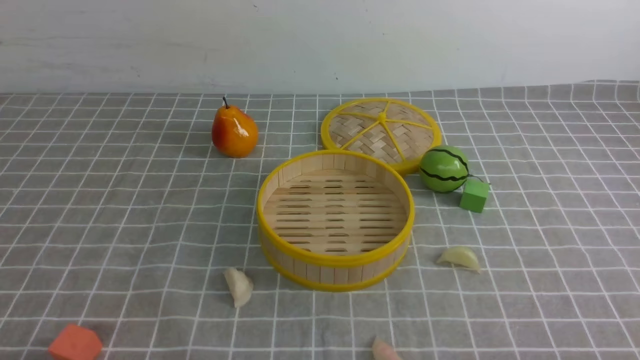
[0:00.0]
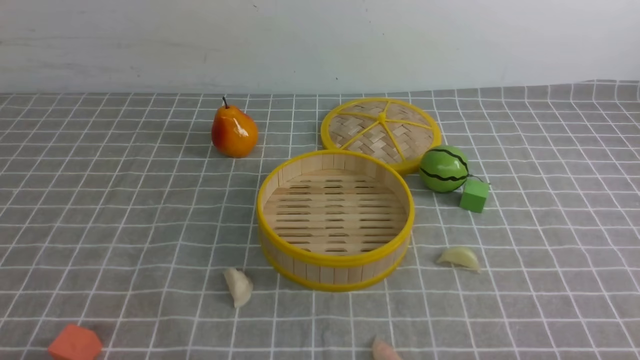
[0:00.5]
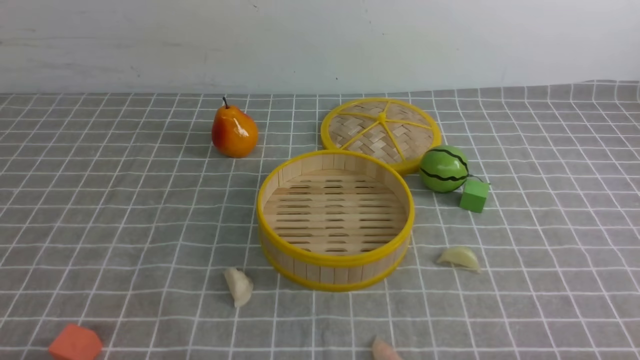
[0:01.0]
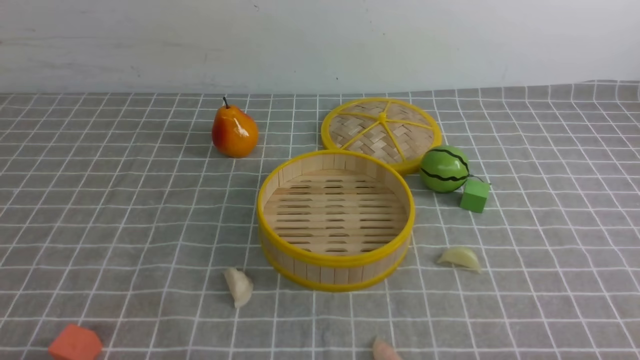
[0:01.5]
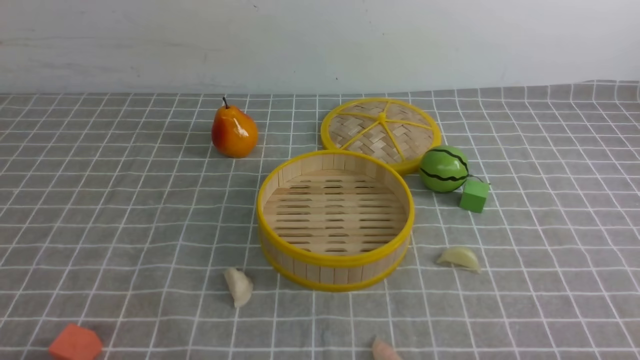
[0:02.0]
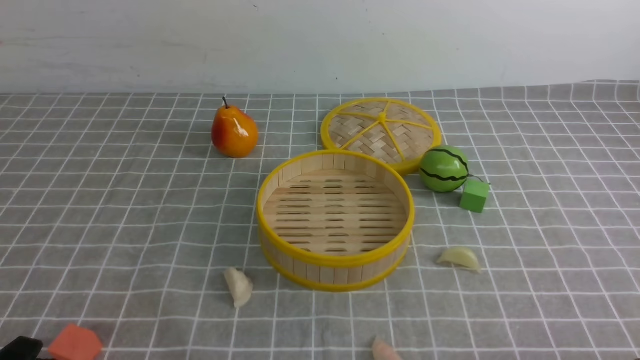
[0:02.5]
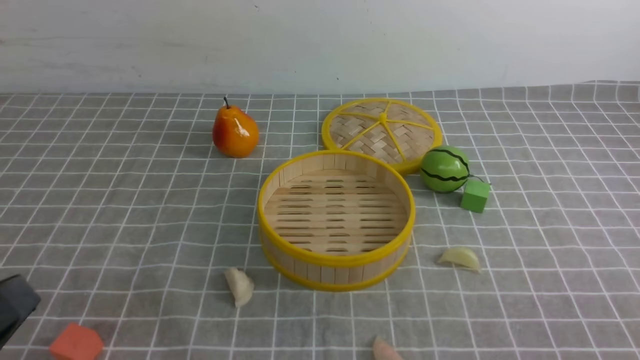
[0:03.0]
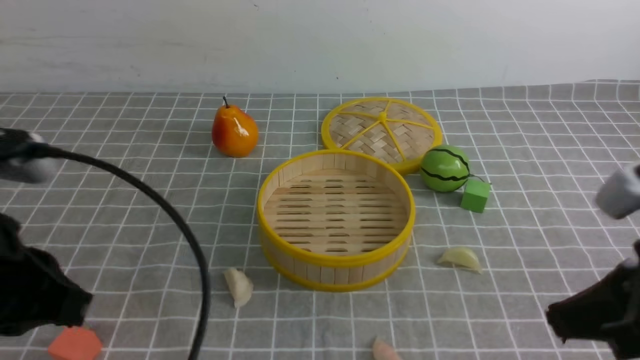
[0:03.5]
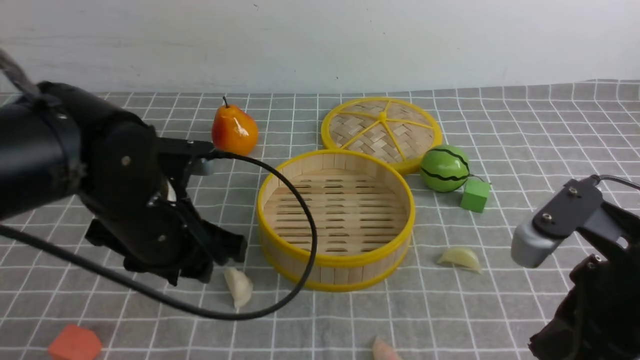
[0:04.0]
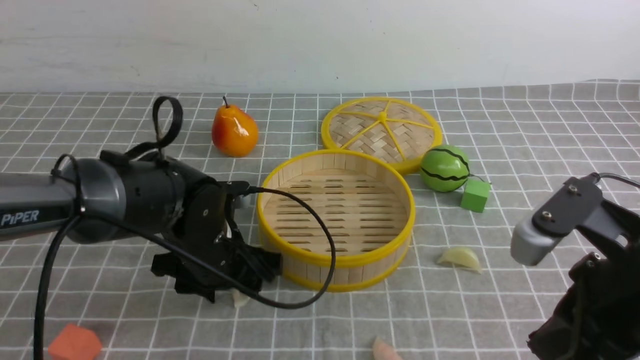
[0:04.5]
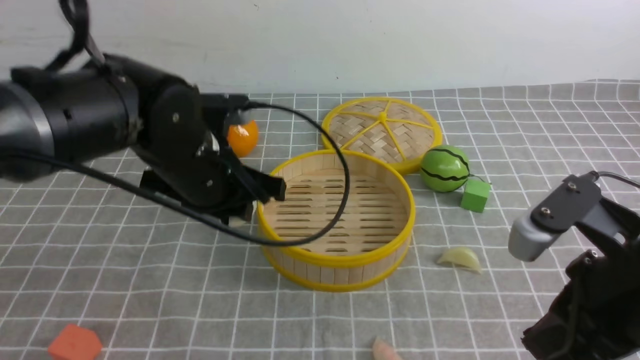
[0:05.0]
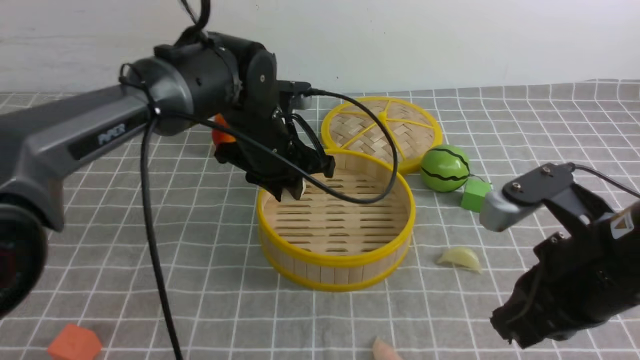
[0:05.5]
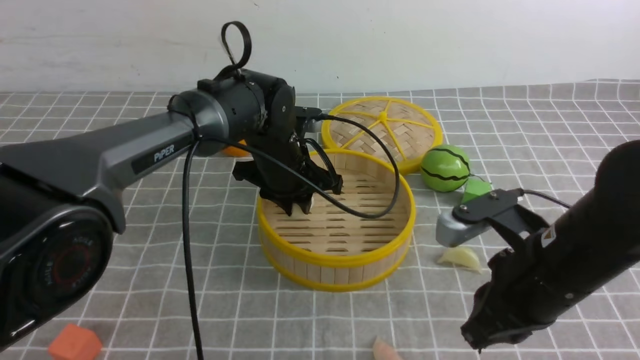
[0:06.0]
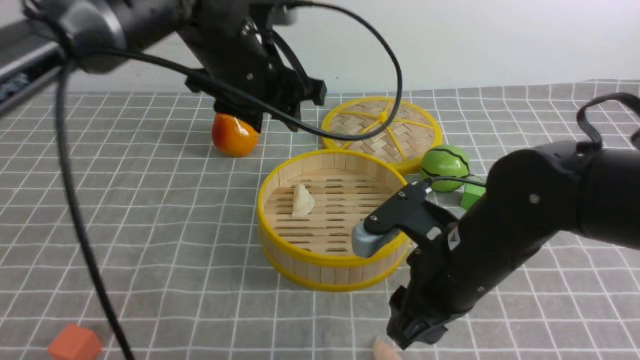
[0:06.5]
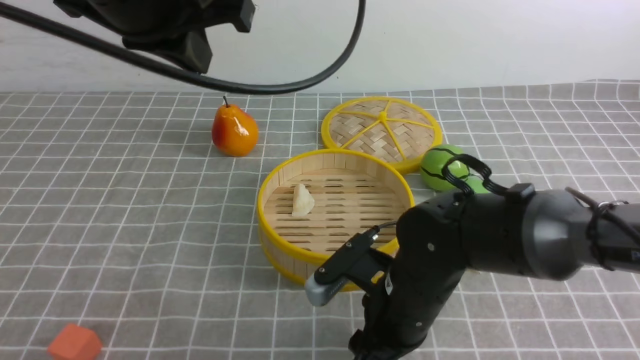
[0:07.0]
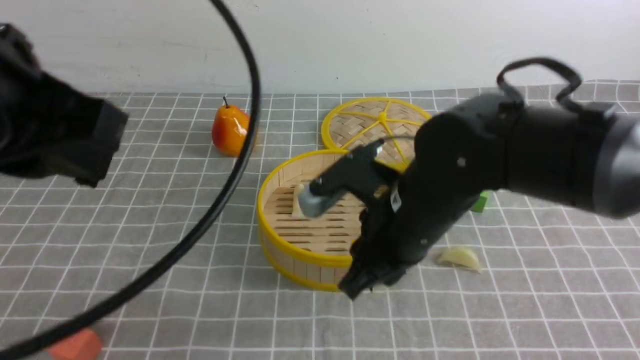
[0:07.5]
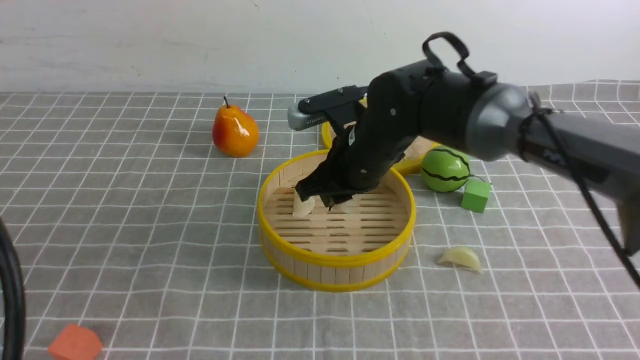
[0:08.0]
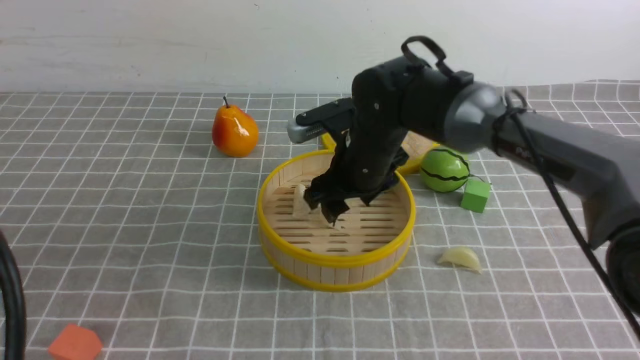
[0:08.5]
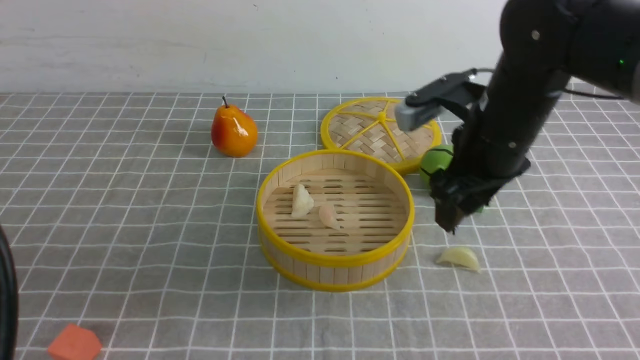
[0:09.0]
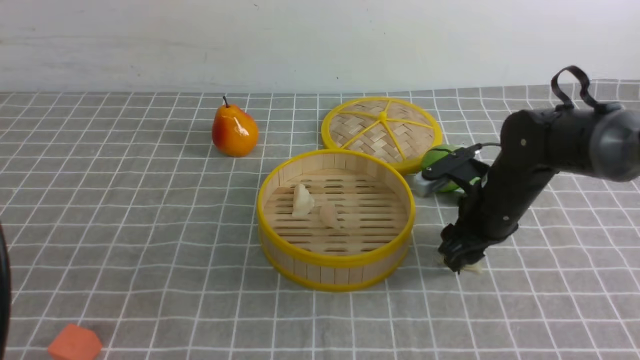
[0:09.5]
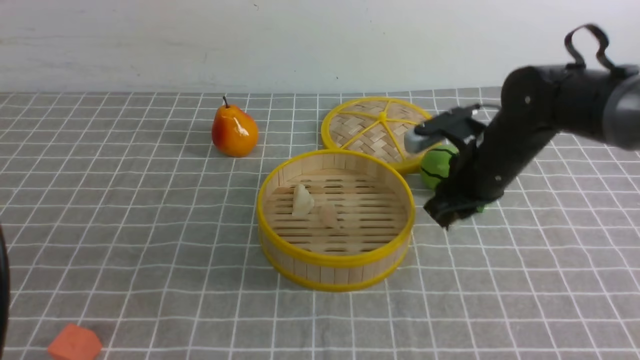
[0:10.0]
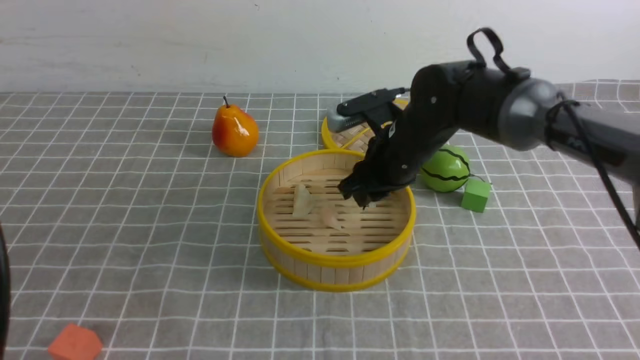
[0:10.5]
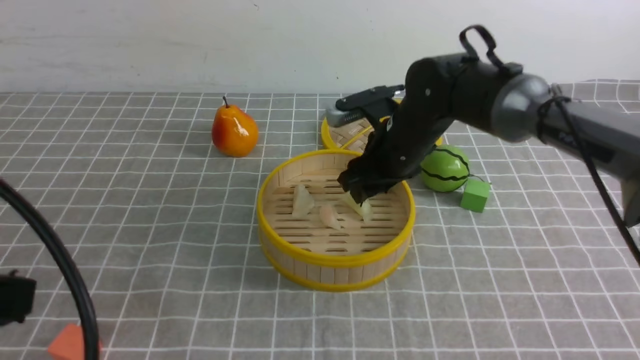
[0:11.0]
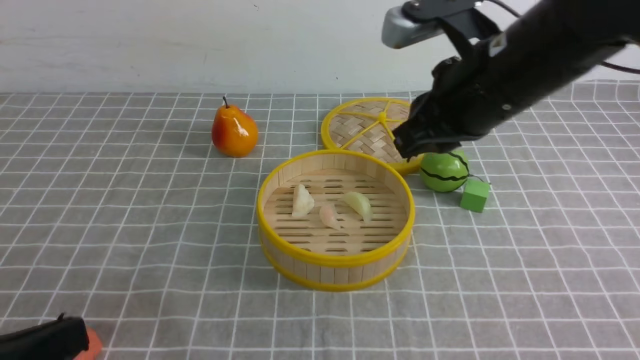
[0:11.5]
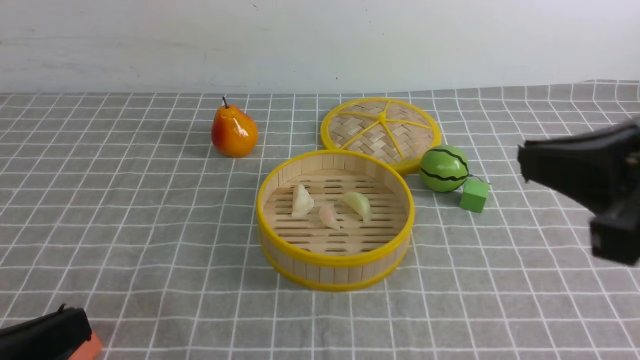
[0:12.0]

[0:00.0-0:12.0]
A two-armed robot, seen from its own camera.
Task of the whole recording: put the dumplings into the steamer on the table with the grey tablecloth.
Step, 0:00.0 to 0:04.5: use the left arm to grab a dumpling.
Step, 0:05.0 to 0:06.0: use the left arm to put the dumpling into the steamer.
Step, 0:06.5 to 0:07.0: use the right arm to grab a dumpling.
Step, 0:07.5 to 0:08.5: use the right arm to put the dumpling into the steamer.
Step, 0:09.0 to 0:09.5: use the right arm to grab a dumpling.
Step, 0:10.0 to 0:11.5: use the right arm to put the dumpling into the steamer.
0:02.0 to 0:04.0: The left gripper heads forward and to the right, covering about 25 cm, and closes, then opens again, while the right gripper is displaced forward, upward and to the left by about 20 cm, and closes.
0:04.0 to 0:06.0: The right gripper is displaced forward by about 5 cm, while the left gripper shifts about 20 cm forward and to the right.
0:06.0 to 0:08.0: The right gripper travels forward and to the left by some 20 cm. The left gripper heads backward, upward and to the left, covering about 40 cm, and closes up.
0:08.0 to 0:10.0: The right gripper moves to the right, approximately 10 cm, and opens, then closes again.
0:10.0 to 0:12.0: The right gripper moves backward and upward, approximately 30 cm, and closes its fingers; the left gripper goes some 15 cm downward.

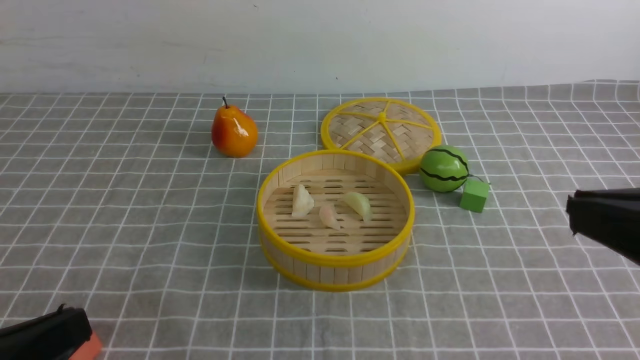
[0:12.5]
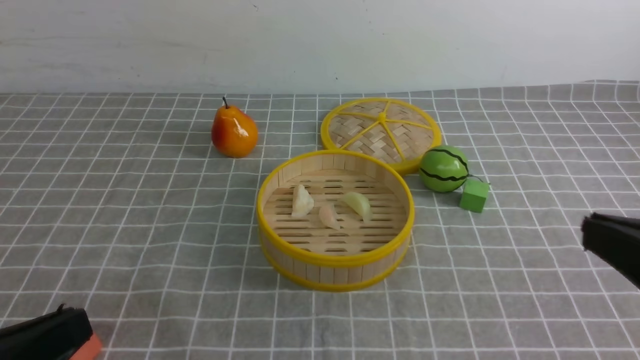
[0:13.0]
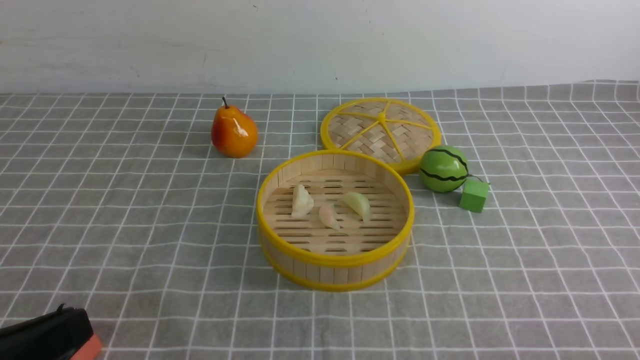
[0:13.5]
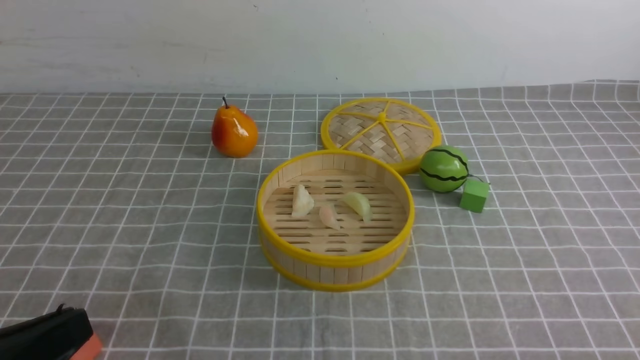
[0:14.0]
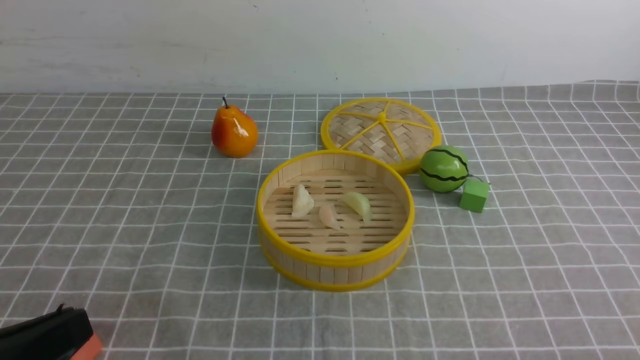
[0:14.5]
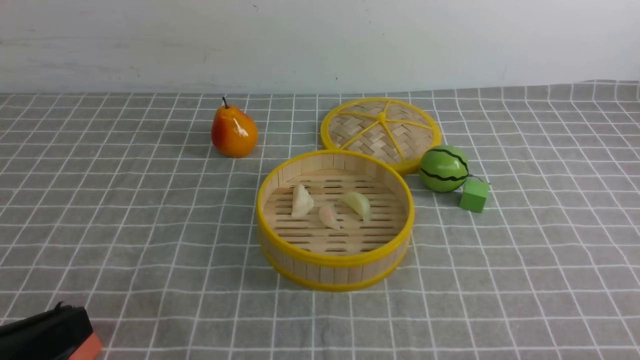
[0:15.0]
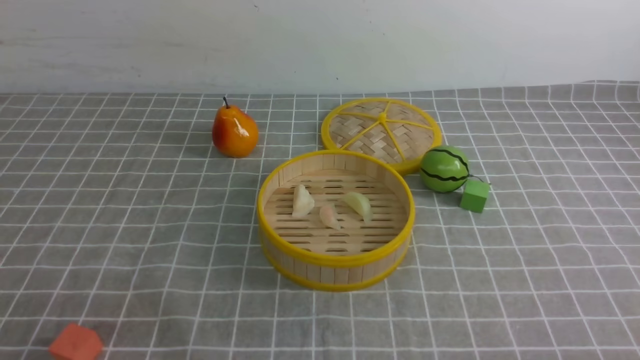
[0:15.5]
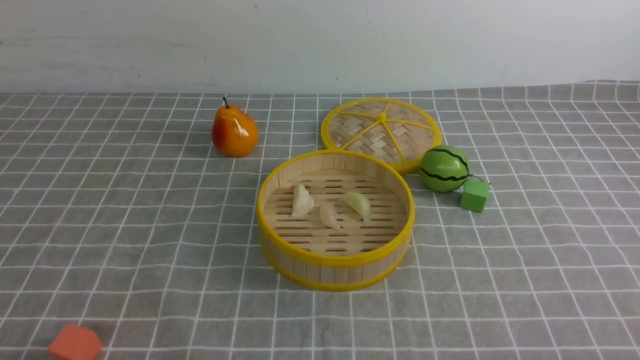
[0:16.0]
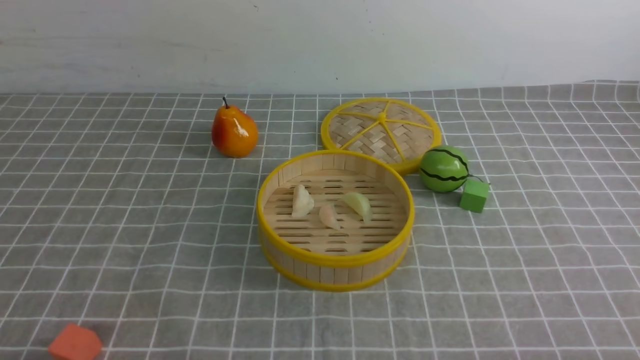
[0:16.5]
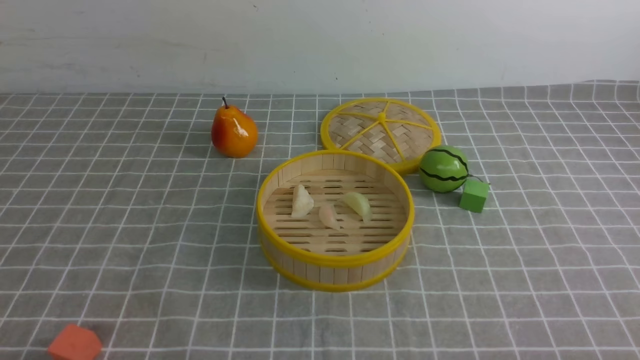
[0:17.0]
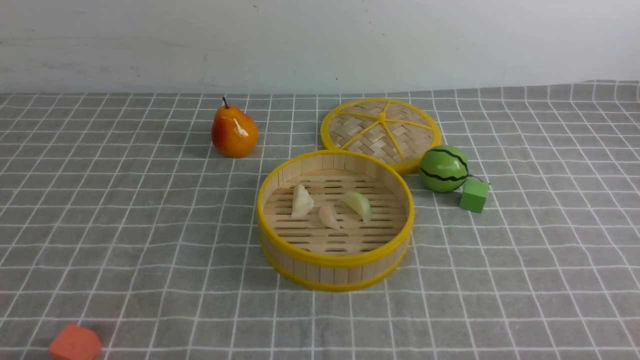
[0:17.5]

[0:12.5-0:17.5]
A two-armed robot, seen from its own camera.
Task of the whole recording: put the dumplings into the steamer on the table with the grey tablecloth.
0:12.5 to 0:15.0: The right gripper is displaced downward by some 20 cm.
0:15.0 to 0:17.5: The left gripper heads downward, covering some 10 cm.
